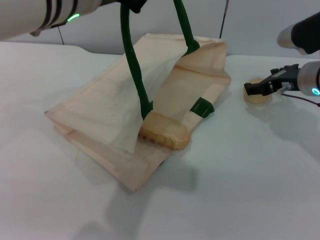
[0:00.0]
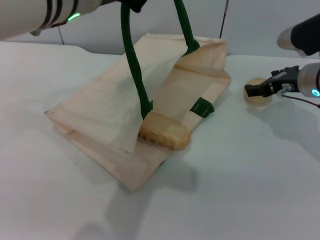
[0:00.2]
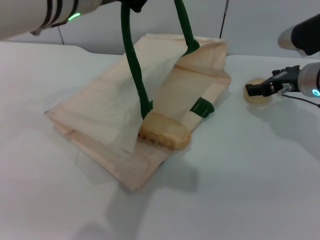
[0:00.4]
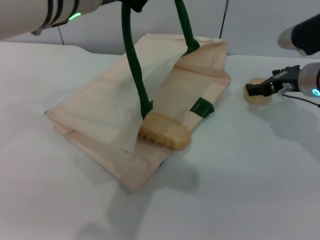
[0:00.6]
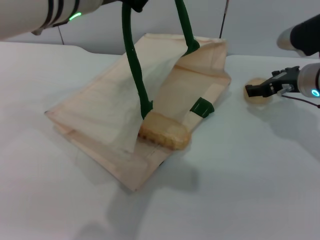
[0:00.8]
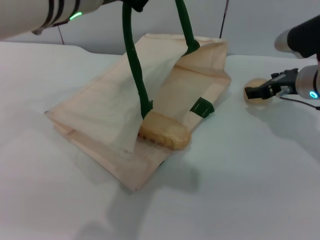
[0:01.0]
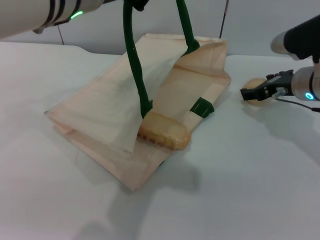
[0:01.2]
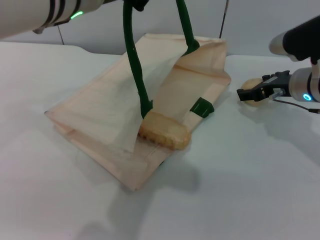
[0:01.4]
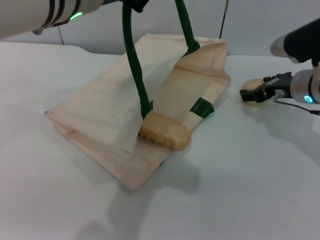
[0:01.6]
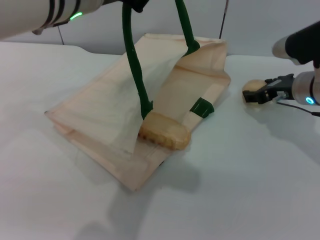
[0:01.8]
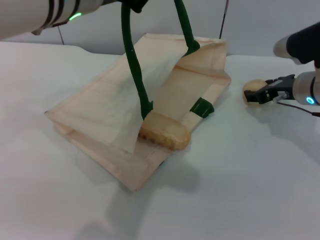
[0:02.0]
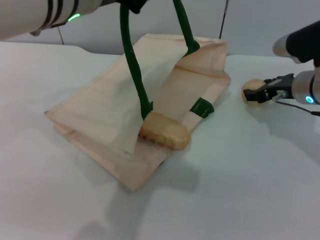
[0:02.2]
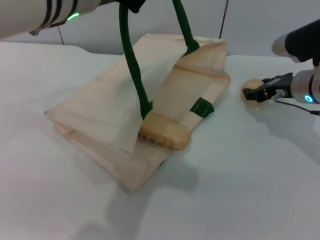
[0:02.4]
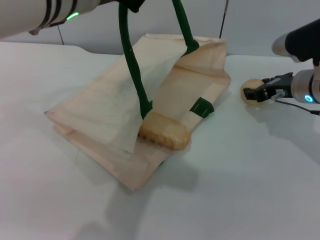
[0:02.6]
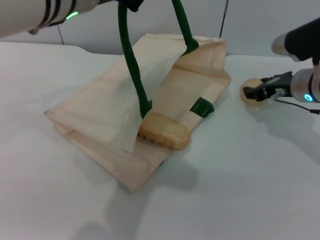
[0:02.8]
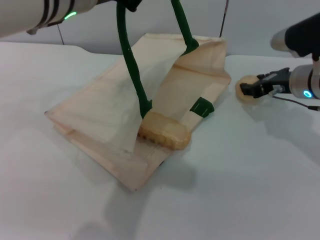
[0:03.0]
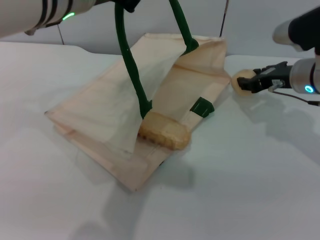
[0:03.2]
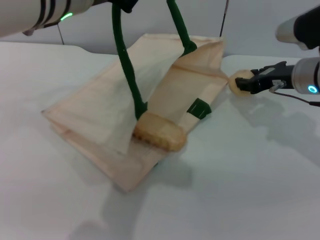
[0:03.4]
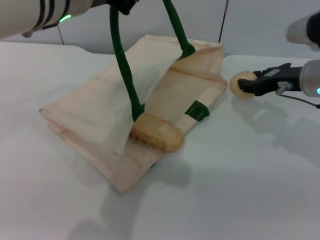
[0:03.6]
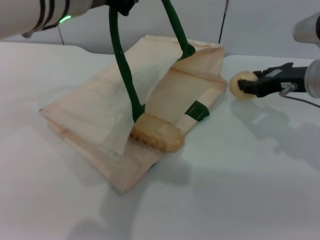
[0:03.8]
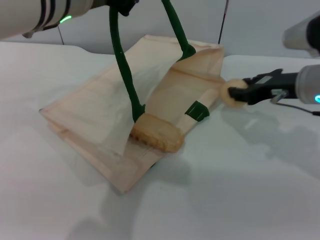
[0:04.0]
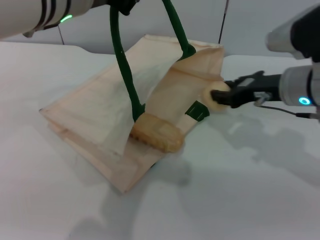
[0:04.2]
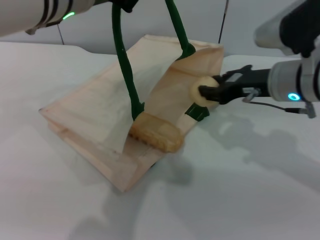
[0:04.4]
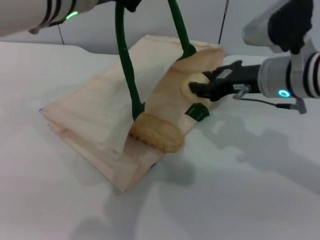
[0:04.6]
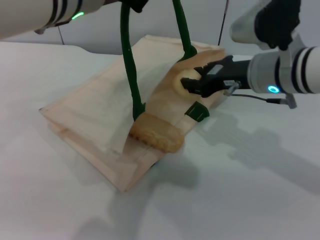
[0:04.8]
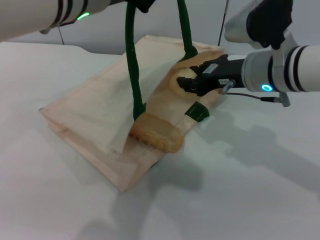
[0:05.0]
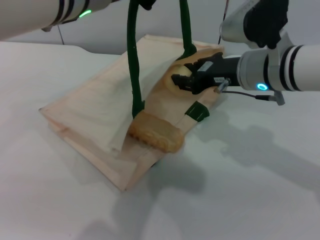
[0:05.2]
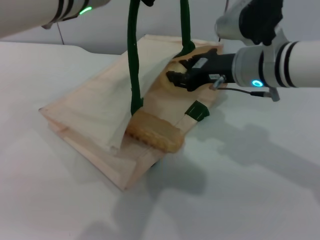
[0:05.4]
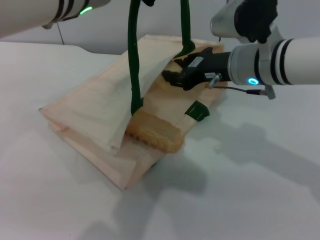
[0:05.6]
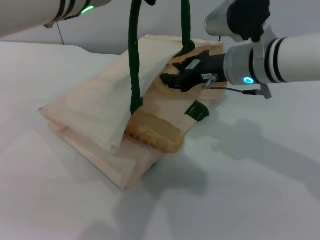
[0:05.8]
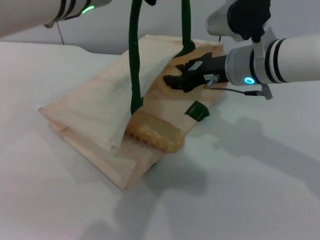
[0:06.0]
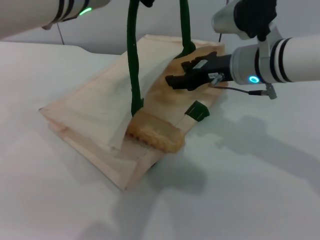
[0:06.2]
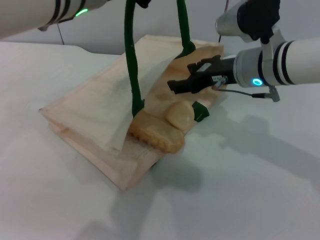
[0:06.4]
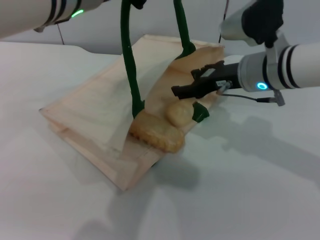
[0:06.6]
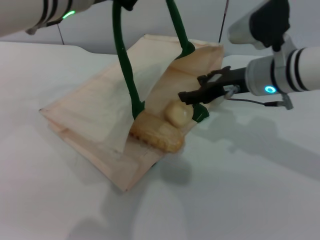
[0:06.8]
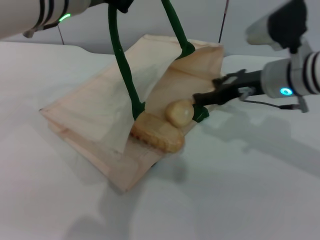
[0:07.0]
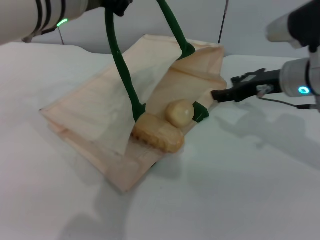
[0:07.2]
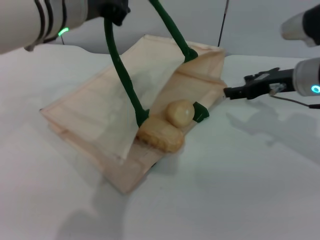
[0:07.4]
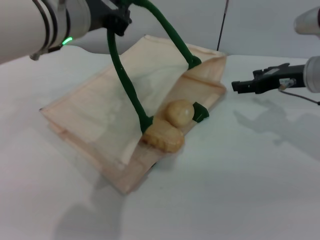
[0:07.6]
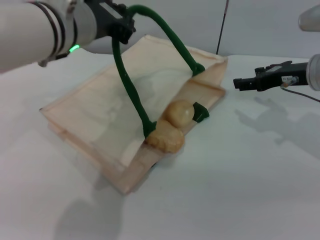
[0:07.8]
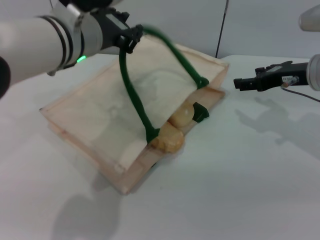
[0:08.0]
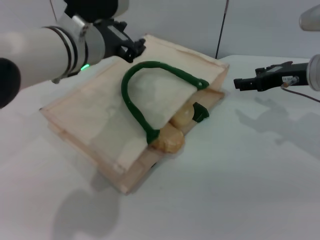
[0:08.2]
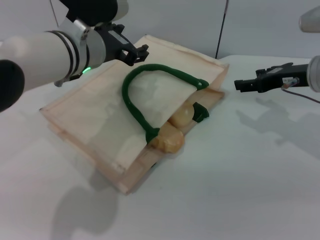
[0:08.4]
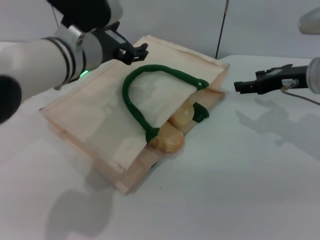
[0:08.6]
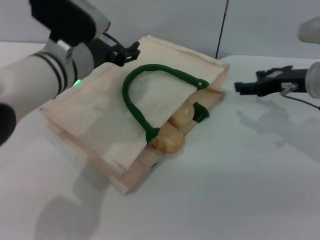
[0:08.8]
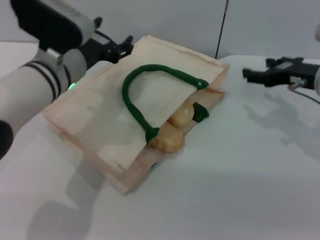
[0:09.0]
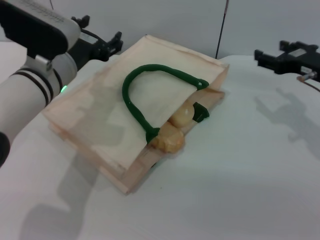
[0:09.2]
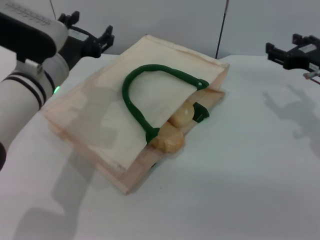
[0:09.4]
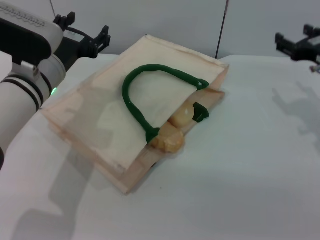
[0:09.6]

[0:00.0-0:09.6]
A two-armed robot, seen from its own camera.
Task of the whole recording: pick up the bread and egg yolk pastry from the table and place it in the white handbag.
Step, 0:00.0 to 0:03.6: Pick up the egg yolk pastry with the right gripper.
Step, 0:03.8 to 0:07.4: Place the egg yolk pastry into the woven bag with the right gripper.
0:00.0 to 0:01.6: The grippers move only a little.
0:01.6 to 0:03.2: The right gripper closes its fingers.
0:03.2 to 0:04.8: The right gripper is displaced to the left by about 5 cm.
0:04.8 to 0:06.4: The grippers make only small movements.
0:06.4 to 0:08.0: The left gripper shifts some 10 cm downward, while the right gripper goes approximately 10 cm to the right, and opens.
0:08.0 to 0:09.6: The left gripper travels downward and to the left by about 10 cm, and opens its fingers.

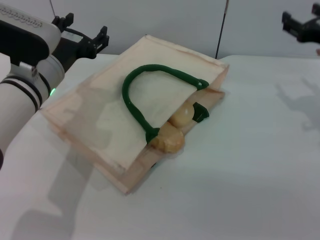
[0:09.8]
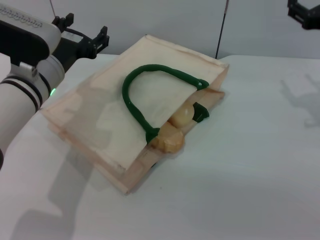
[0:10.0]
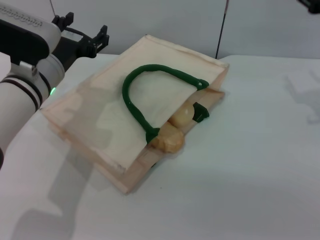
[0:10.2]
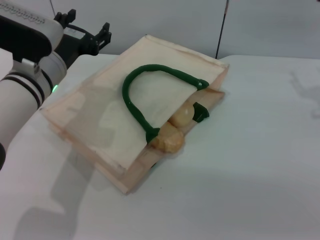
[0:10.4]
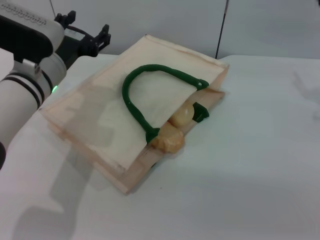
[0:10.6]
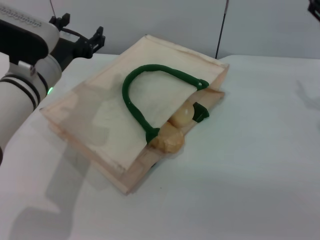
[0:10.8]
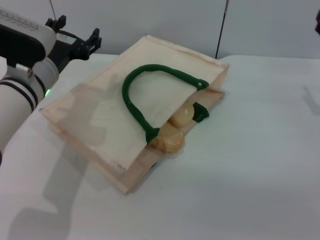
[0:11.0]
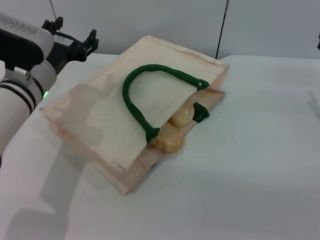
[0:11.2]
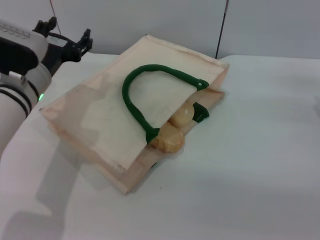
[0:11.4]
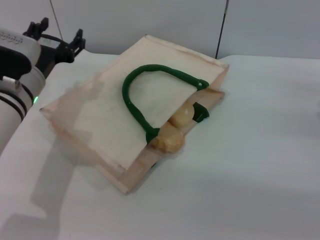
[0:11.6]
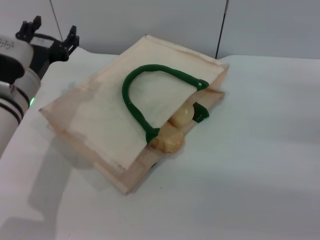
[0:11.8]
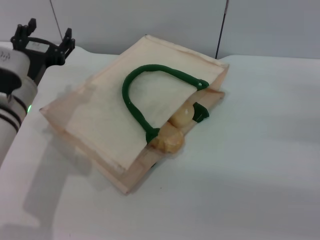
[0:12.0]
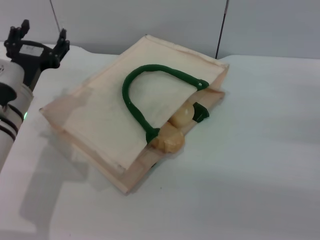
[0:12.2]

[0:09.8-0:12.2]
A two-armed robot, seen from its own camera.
Task of the whole recording: pick up the bread and egg yolk pastry from the table and place it in the white handbag.
0:09.8 to 0:11.0: The right gripper changes place by about 5 cm.
0:11.0 to 0:12.2: The left gripper ends up some 5 cm from where it was.
